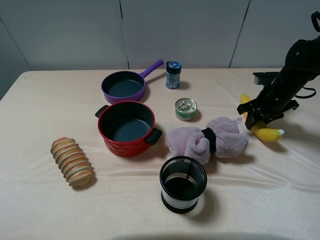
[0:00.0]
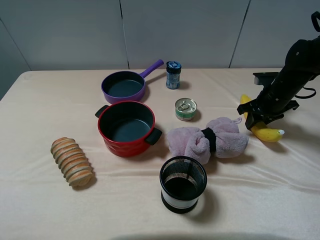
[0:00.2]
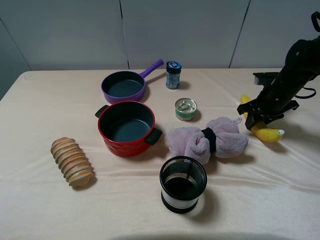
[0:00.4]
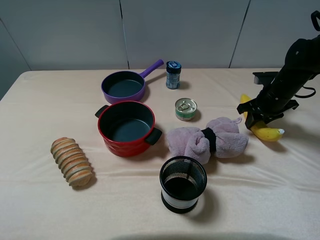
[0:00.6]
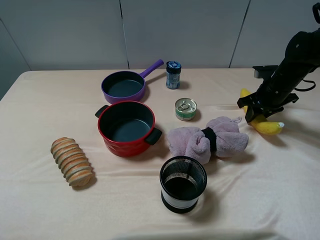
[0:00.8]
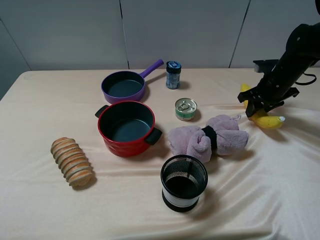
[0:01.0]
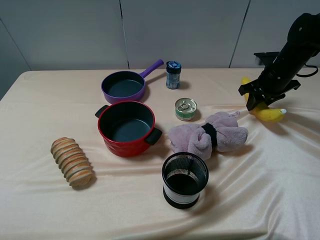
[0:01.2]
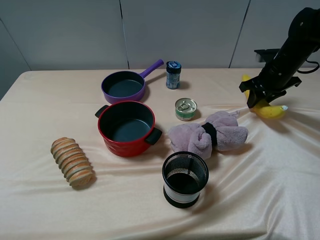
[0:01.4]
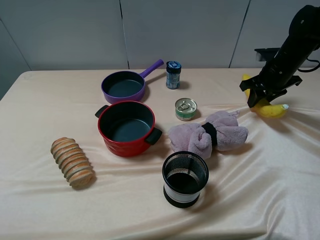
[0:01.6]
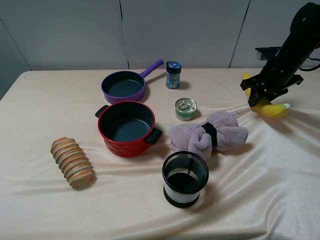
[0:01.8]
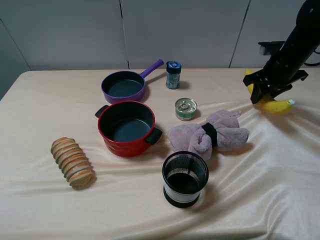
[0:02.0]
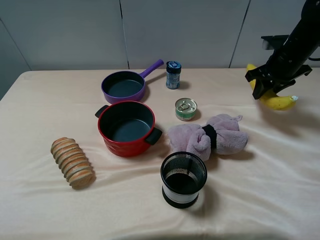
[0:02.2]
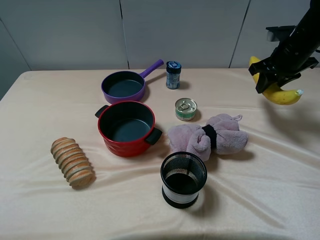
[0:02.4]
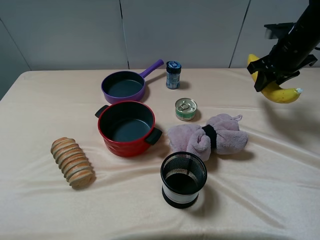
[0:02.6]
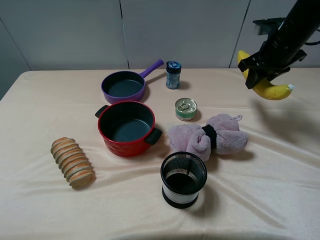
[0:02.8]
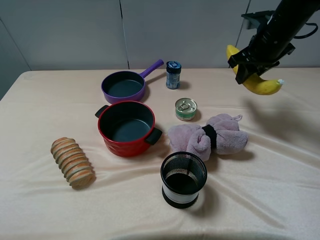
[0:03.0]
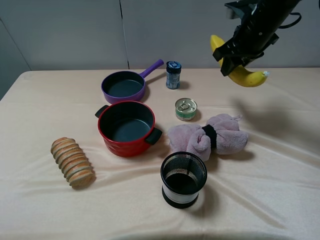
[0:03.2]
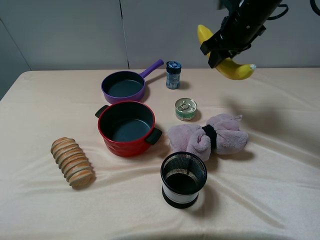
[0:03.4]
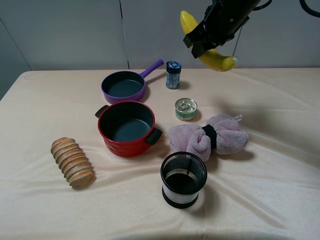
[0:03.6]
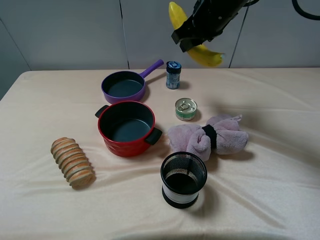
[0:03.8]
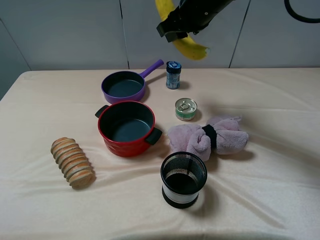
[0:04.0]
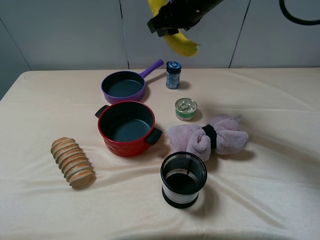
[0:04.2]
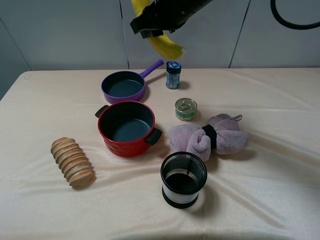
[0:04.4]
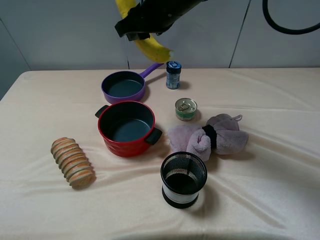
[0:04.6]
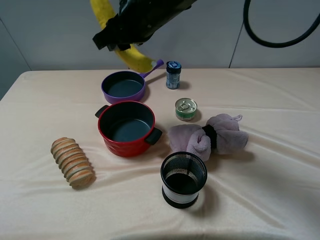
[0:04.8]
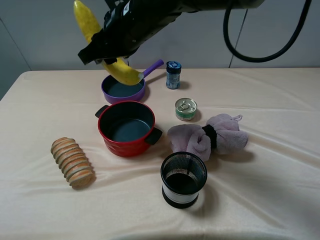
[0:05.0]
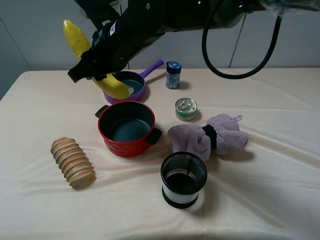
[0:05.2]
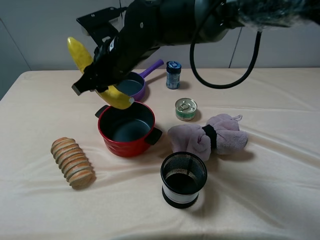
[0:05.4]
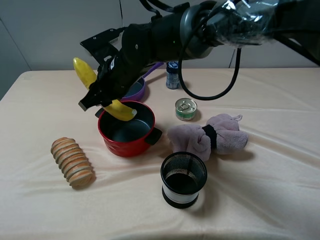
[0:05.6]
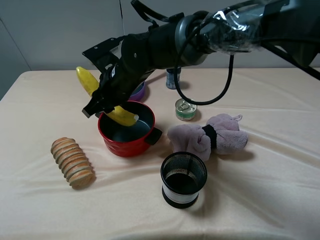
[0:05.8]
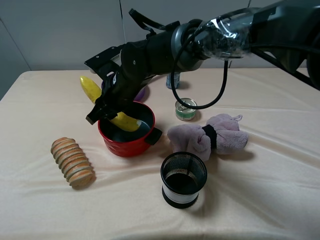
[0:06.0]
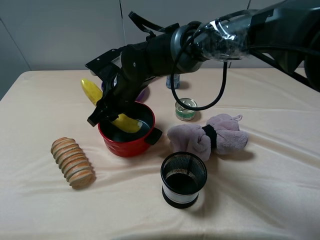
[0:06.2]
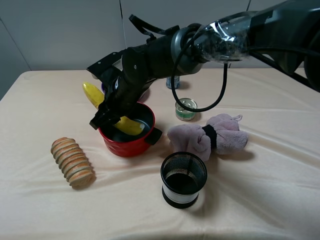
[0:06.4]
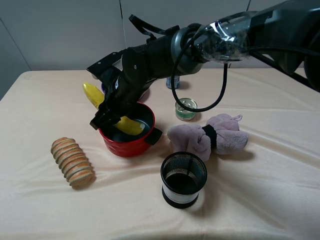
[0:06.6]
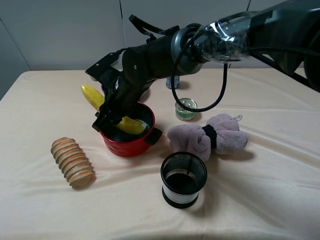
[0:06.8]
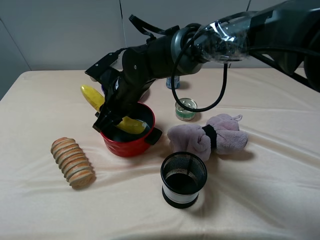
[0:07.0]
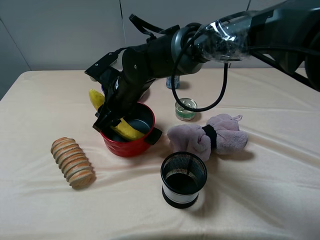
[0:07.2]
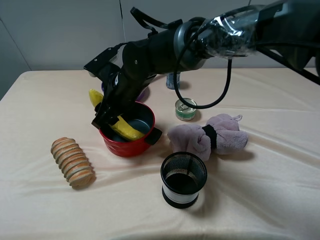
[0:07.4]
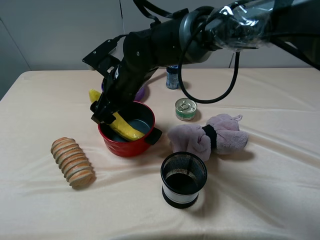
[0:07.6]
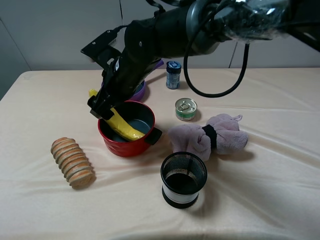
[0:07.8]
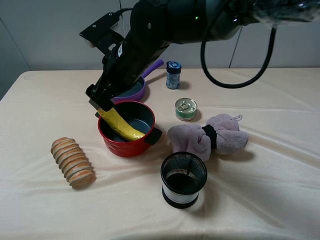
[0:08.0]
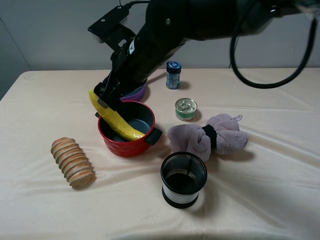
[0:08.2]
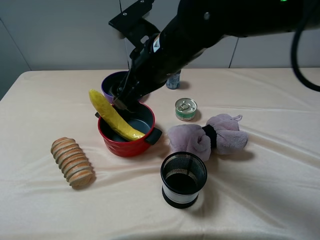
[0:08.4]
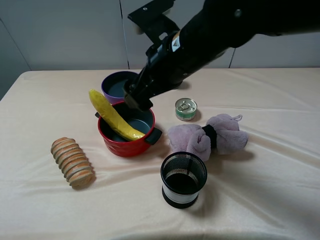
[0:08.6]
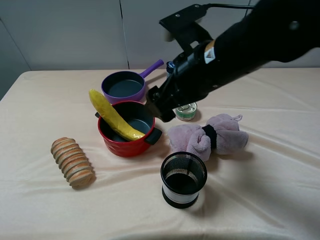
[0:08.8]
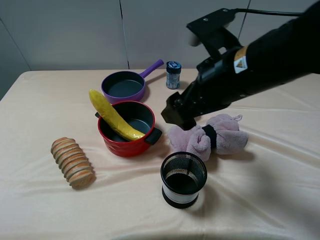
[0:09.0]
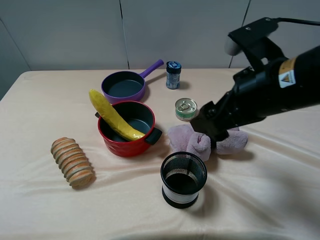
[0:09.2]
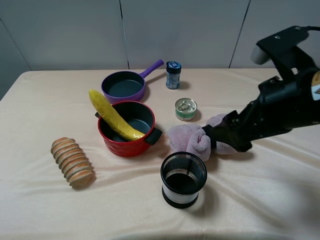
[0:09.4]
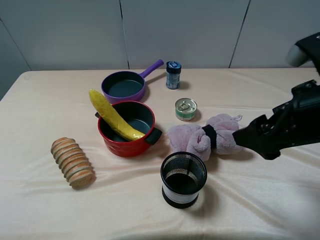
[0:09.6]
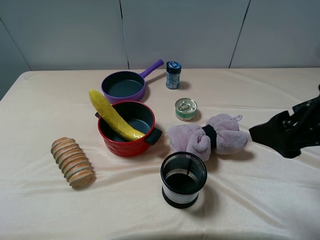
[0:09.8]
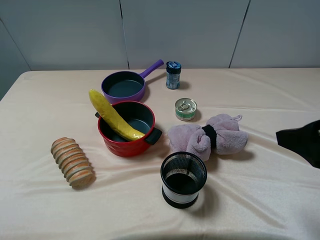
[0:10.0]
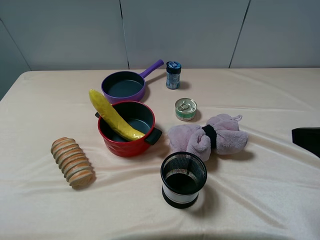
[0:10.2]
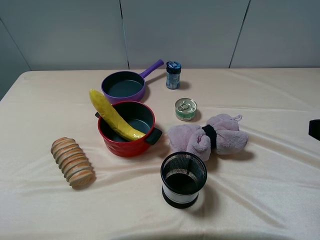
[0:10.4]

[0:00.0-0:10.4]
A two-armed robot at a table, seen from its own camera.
Task of the whole recording: pick up an item with a gripper and place it in a random container on the table.
Step, 0:00.2 to 0:07.6: Place the banana into the red pot with the right gripper.
0:00.0 to 0:01.4: The right gripper moves some 5 cm.
0:01.4 to 0:03.0: The right gripper goes about 10 cm upward and to the left.
0:03.0 to 0:04.4: The right gripper is displaced to the left by approximately 20 cm.
0:04.4 to 0:06.0: The right gripper travels downward and to the left by about 20 cm.
0:06.0 to 0:07.4: The right gripper opens up.
0:07.4 to 0:09.0: The right gripper travels to the right, upward and backward by approximately 25 cm, and opens its fingers.
0:09.0 to 0:10.4: The right gripper heads to the right and backward, covering roughly 20 cm.

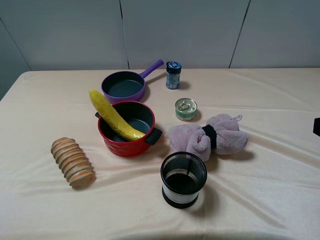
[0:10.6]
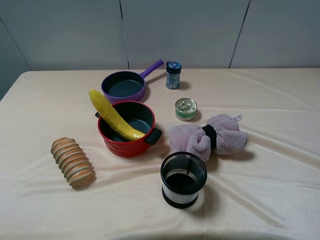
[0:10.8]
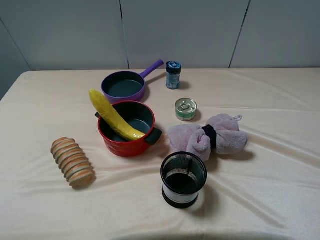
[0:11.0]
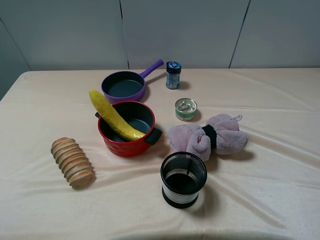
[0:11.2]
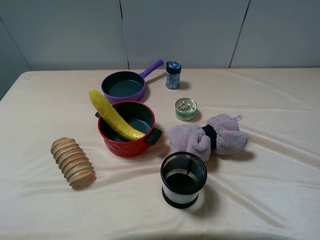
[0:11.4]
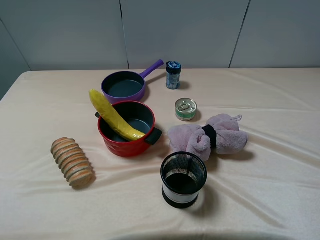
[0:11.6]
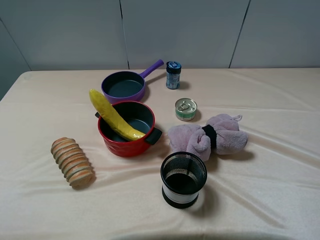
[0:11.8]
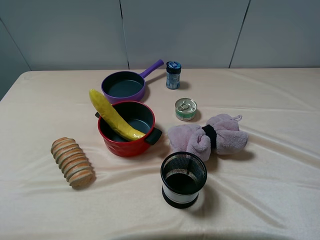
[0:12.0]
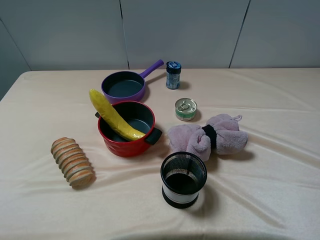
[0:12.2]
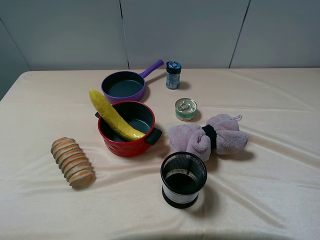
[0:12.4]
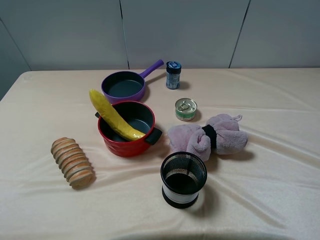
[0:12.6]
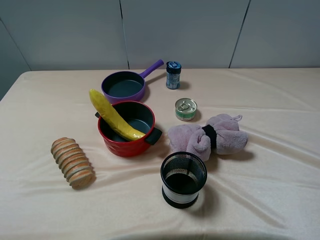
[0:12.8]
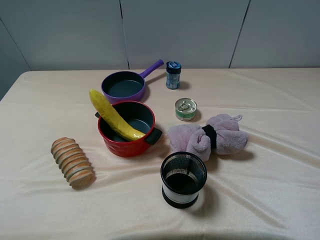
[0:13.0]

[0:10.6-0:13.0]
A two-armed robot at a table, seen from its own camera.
Task of the whole recording: pick up an item with a gripper and place it in a random container on the table.
0:11.8 to 0:13.0: Neither gripper changes place.
